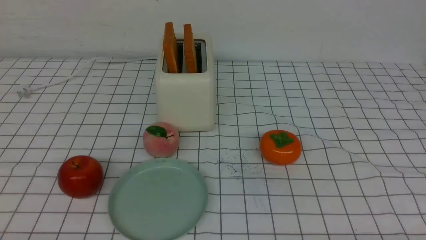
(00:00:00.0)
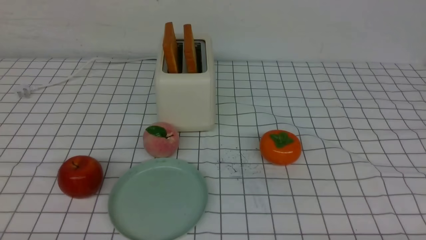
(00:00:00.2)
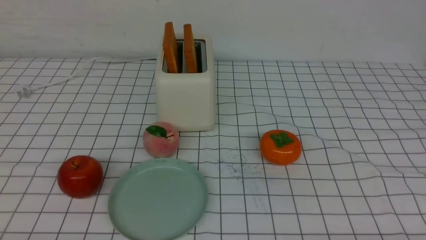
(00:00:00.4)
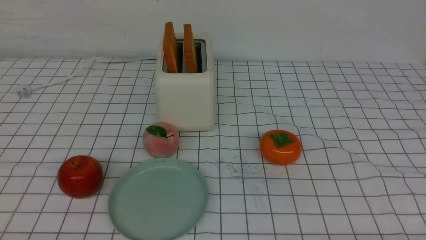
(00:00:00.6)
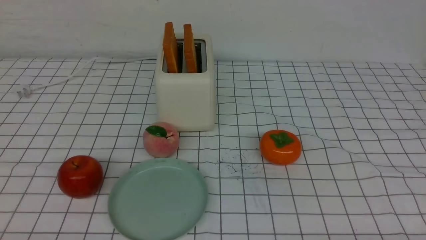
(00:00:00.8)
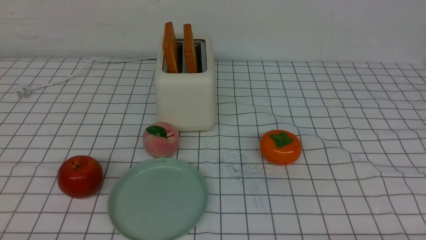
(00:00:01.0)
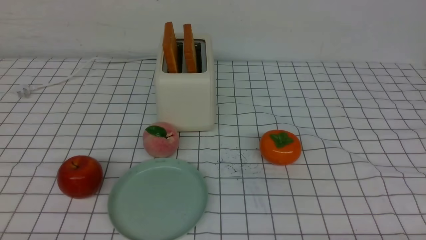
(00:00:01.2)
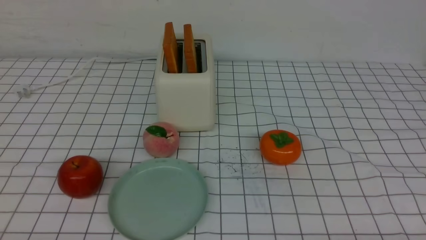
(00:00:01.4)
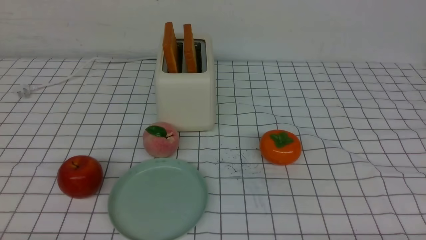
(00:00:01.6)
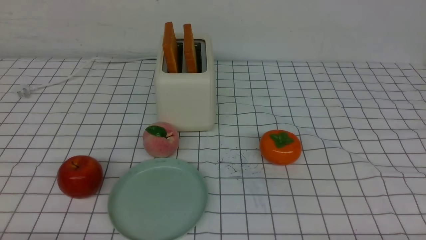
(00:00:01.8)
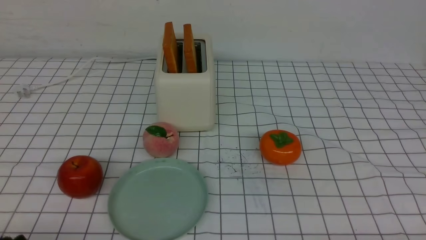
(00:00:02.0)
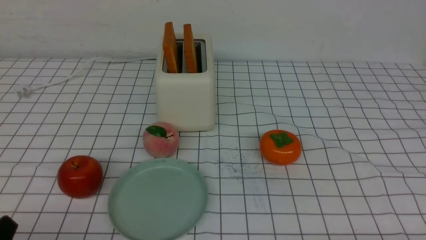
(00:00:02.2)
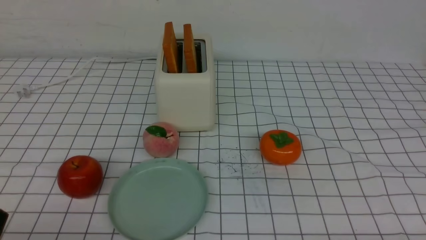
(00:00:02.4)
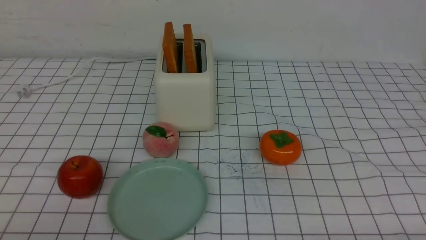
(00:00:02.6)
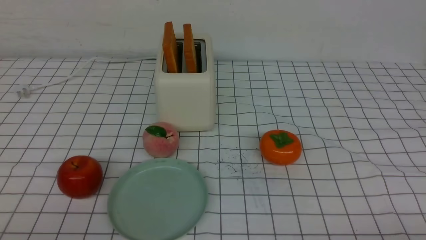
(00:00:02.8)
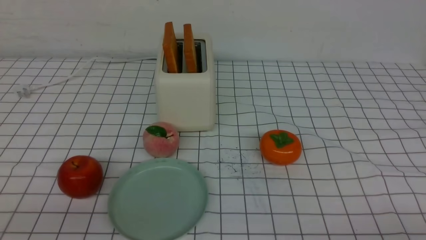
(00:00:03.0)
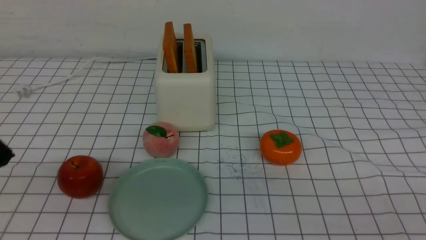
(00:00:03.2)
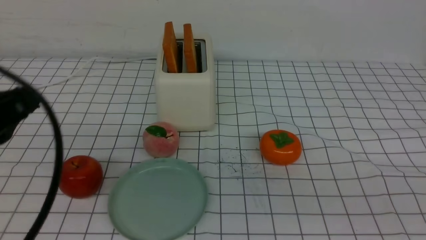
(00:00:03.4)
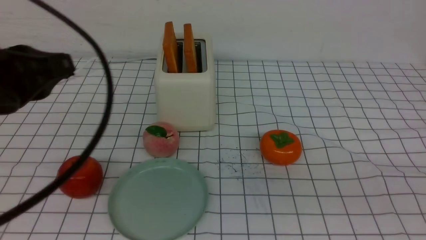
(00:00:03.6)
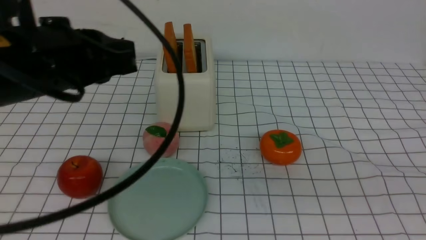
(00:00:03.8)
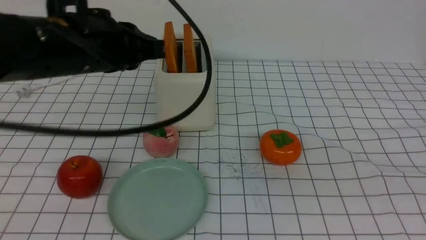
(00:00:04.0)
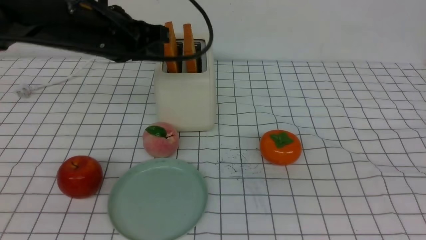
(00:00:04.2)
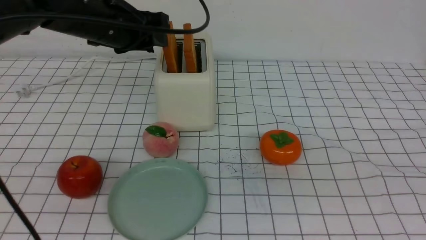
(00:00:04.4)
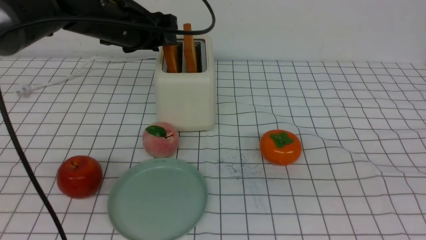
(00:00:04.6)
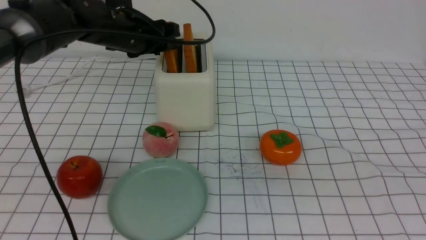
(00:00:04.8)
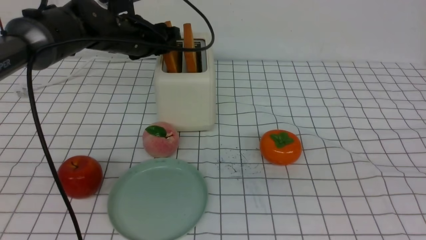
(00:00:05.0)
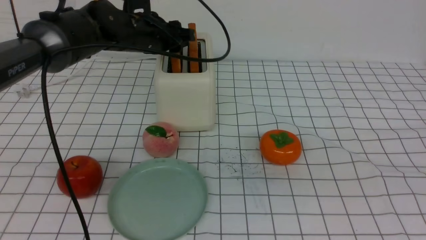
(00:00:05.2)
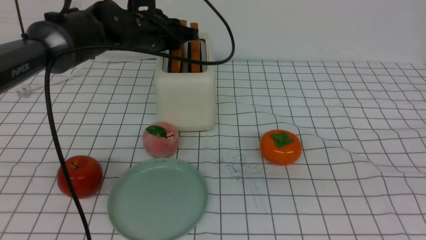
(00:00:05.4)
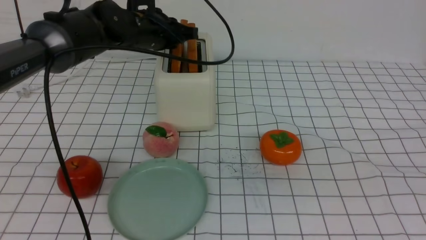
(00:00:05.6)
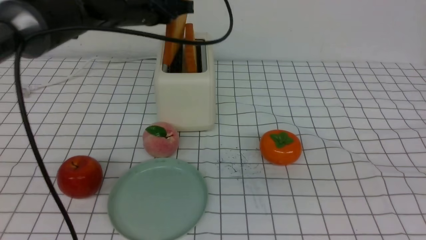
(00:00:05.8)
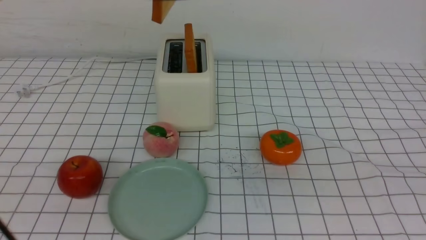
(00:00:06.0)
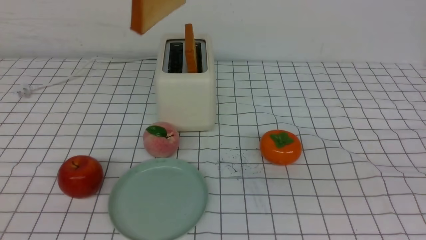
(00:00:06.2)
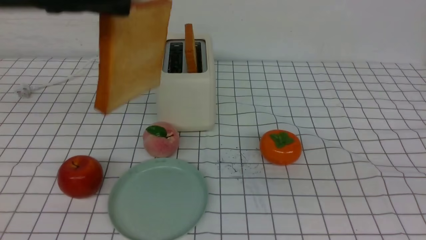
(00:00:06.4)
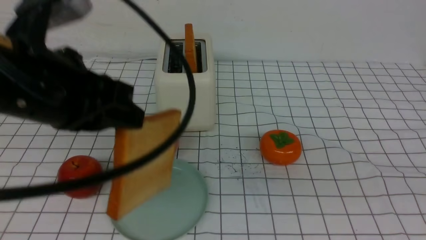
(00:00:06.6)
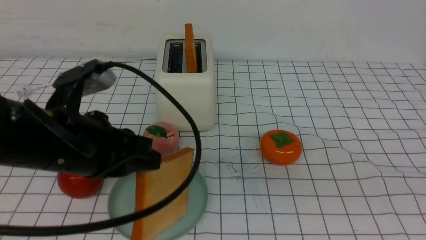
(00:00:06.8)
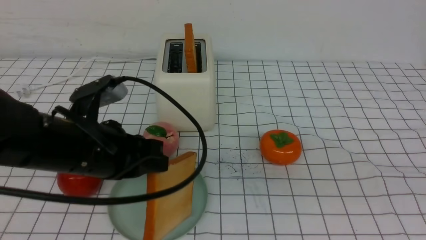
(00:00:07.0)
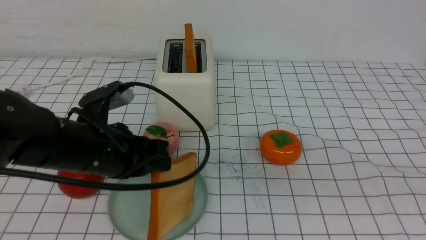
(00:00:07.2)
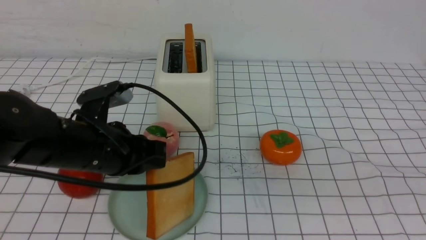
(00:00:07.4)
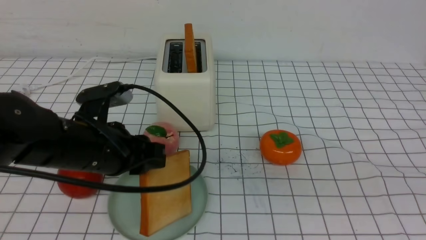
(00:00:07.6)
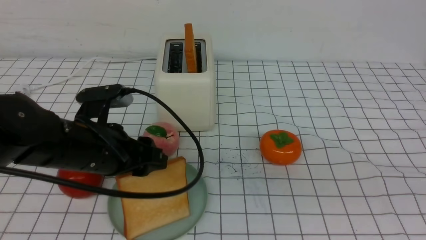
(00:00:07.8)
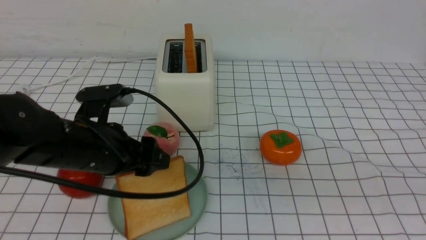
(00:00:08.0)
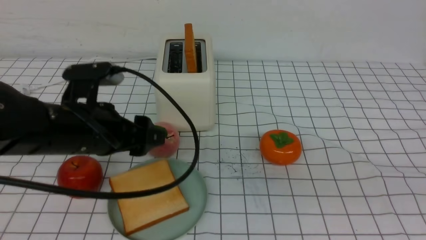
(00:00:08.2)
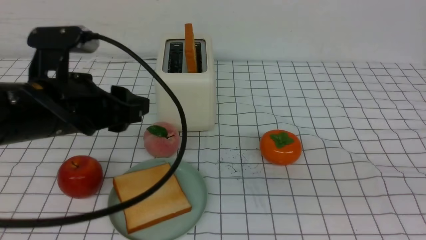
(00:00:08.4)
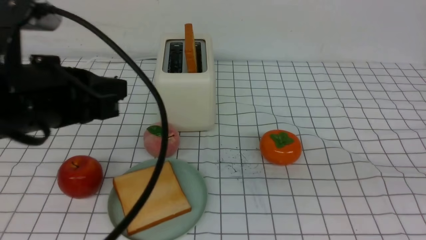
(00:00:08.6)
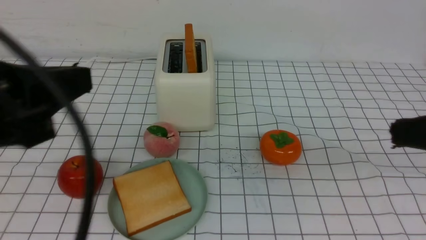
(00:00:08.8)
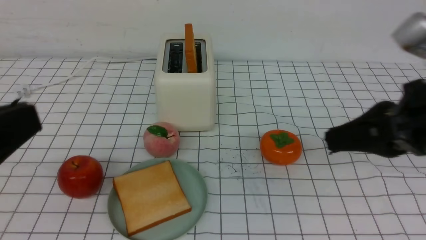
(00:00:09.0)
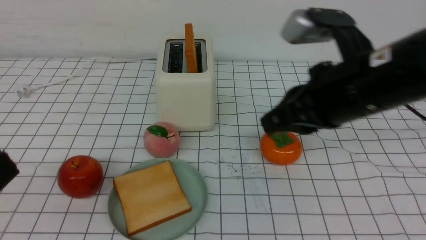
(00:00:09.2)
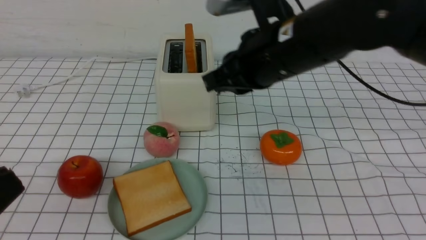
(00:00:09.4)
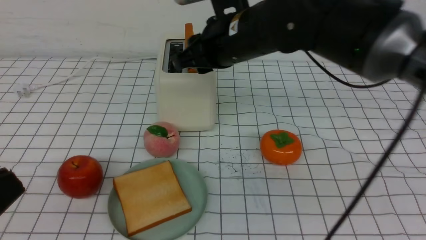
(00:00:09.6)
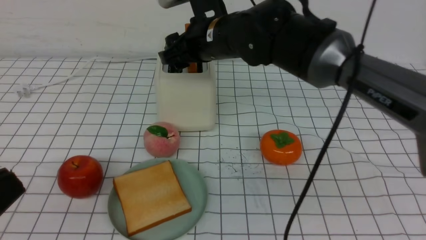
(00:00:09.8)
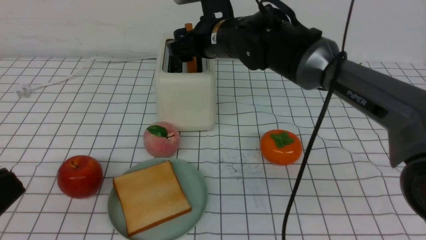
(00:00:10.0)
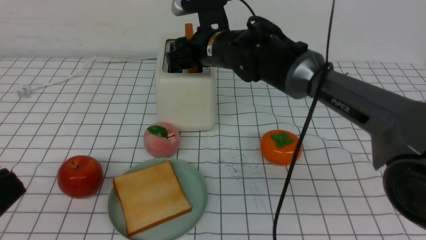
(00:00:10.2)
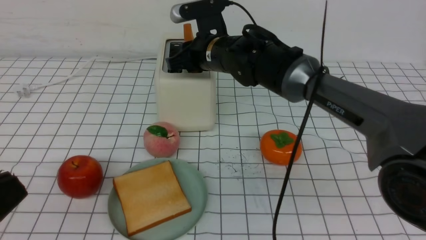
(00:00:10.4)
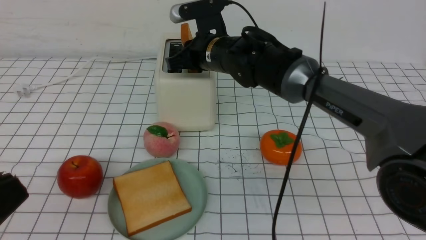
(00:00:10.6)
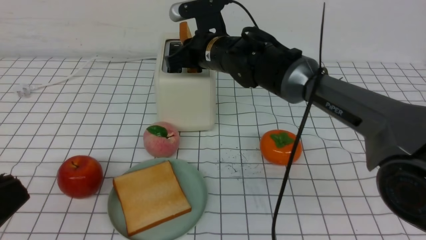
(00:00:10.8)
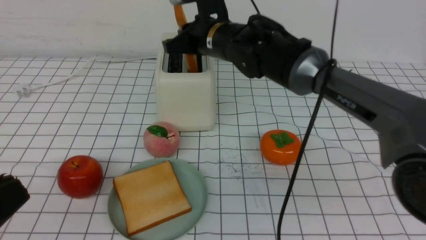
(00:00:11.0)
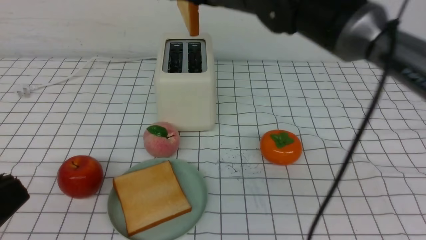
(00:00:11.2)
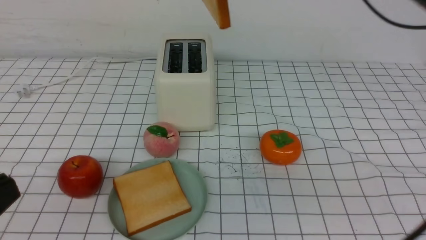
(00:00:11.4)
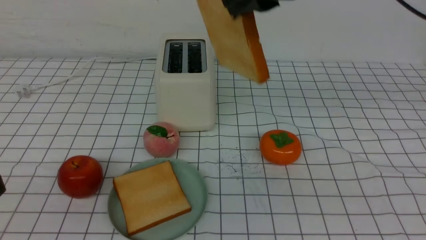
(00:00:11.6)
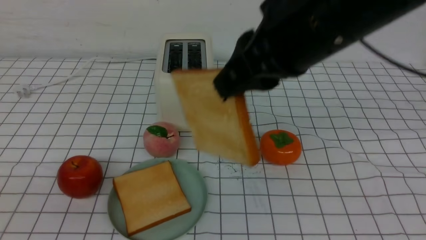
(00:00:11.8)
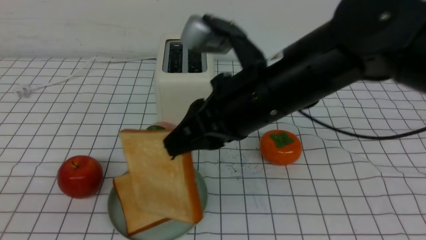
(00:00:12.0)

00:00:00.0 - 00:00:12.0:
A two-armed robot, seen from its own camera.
Task of the whole recording: take toasted bread from bread machine on white checkered table place on plate.
Step, 00:00:00.0 - 00:00:05.8: use the left arm to take out a slice of bread.
Step, 00:00:06.0 - 00:00:08.0: use the left arm to put a slice of bread into the empty plate.
Step, 00:00:08.2 - 00:00:11.0: use the right arm to take out a slice of bread.
00:00:00.0 - 00:00:01.6: Both grippers stay put.
00:00:01.6 - 00:00:03.0: The left gripper goes some 10 cm upward.
00:00:03.0 - 00:00:04.4: The right gripper heads upward, covering approximately 20 cm. The left gripper is displaced forward by some 35 cm, and opens up.
00:00:04.4 - 00:00:06.0: The left gripper shifts roughly 10 cm upward, and closes its fingers.
00:00:06.0 - 00:00:07.6: The left gripper is displaced downward and backward by some 25 cm, and opens its fingers.
00:00:07.6 - 00:00:09.0: The right gripper travels forward by some 15 cm, while the left gripper is displaced backward and upward by some 25 cm, and closes up.
00:00:09.0 - 00:00:10.4: The right gripper heads forward and to the left, covering about 30 cm, and opens up. The left gripper ends up some 5 cm from where it was.
00:00:10.4 - 00:00:12.0: The right gripper moves backward, roughly 20 cm.

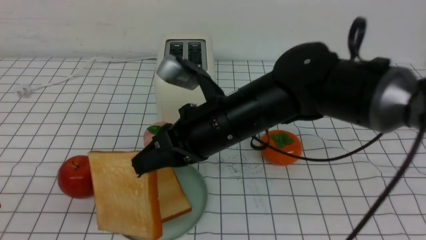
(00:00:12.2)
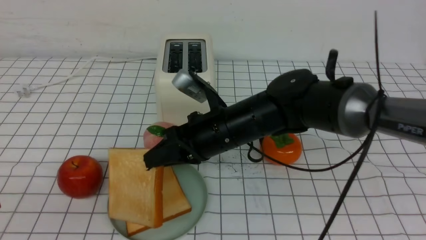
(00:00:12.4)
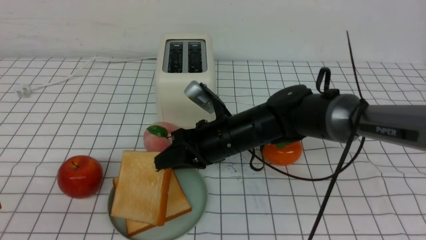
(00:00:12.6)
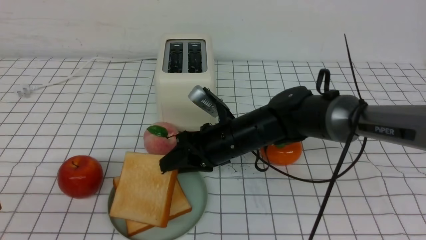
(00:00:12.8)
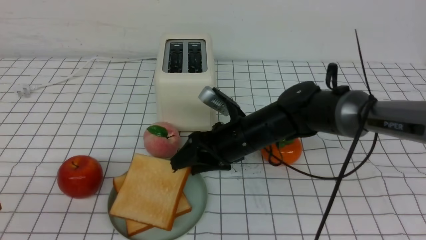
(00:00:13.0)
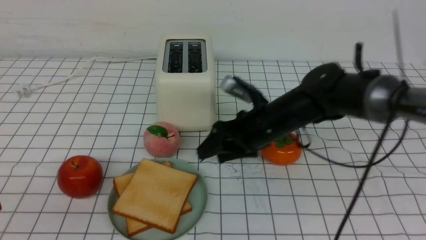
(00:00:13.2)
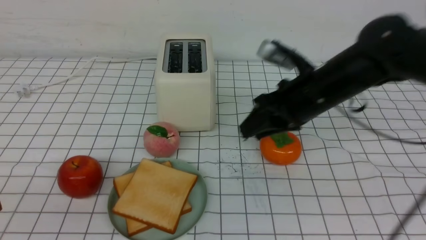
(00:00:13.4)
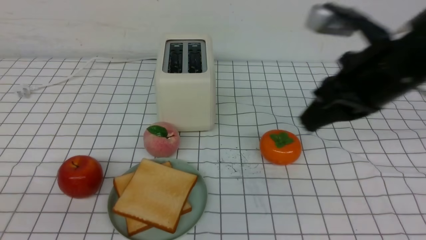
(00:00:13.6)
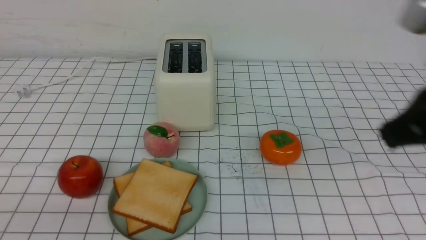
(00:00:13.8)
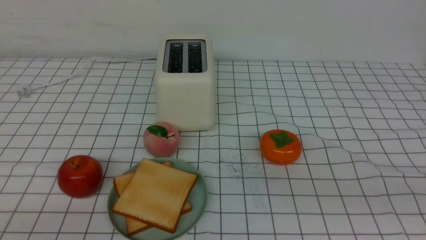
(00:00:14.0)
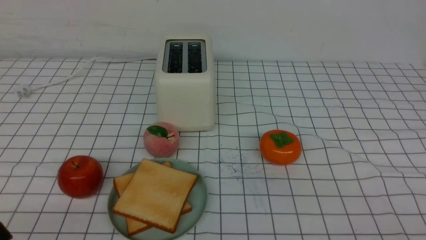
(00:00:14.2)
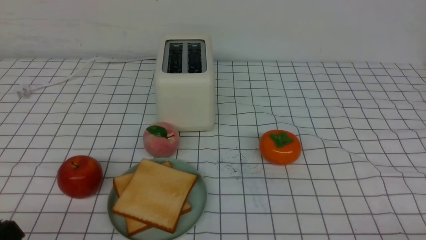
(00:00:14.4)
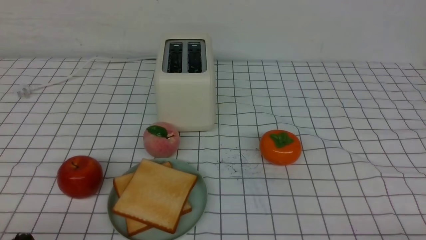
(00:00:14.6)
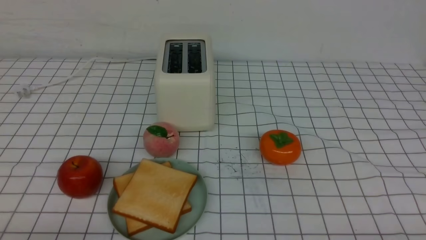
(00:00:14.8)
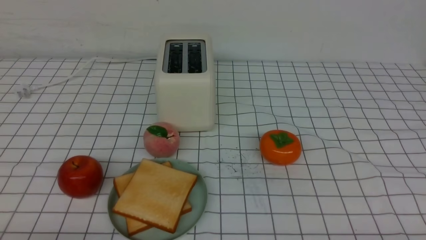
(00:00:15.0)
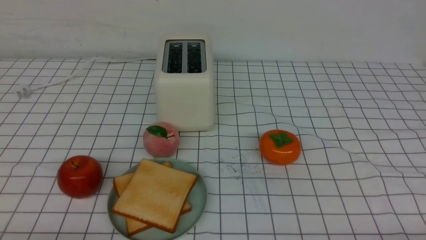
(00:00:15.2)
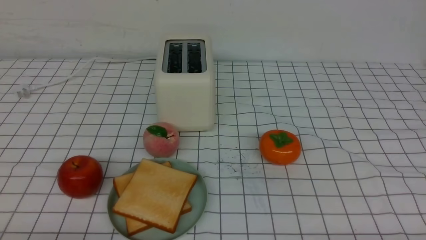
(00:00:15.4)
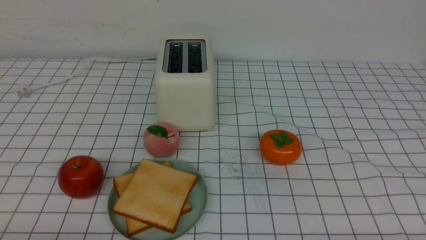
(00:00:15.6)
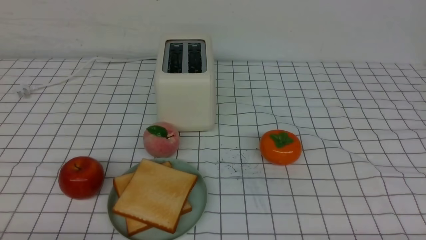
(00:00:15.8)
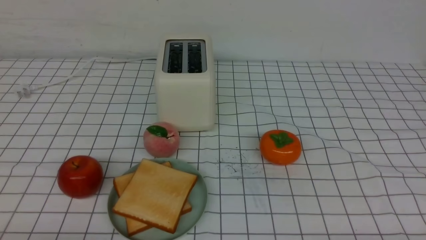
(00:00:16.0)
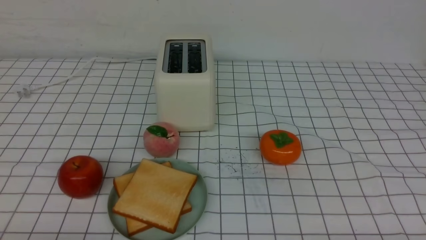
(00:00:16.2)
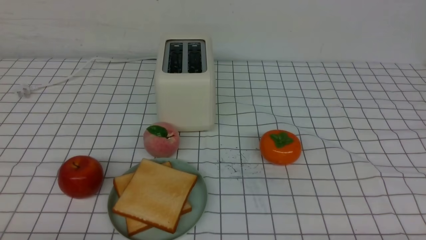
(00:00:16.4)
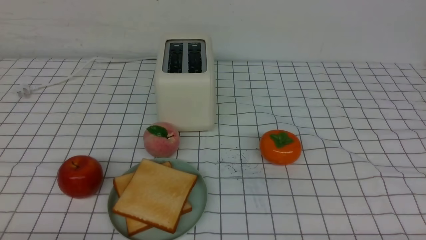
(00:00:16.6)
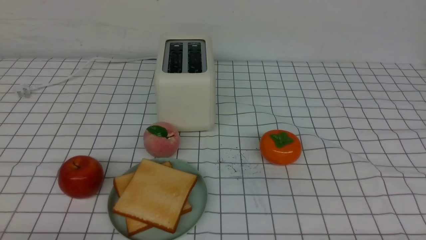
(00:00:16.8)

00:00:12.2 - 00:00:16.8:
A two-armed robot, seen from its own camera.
Task of the whole recording: take toasted bread from bread machine on white checkered table place on plate.
00:00:12.2 - 00:00:13.8: The right gripper travels to the right, backward and upward by roughly 25 cm, and opens, then closes once more.
00:00:13.8 - 00:00:15.2: The left gripper heads downward, covering about 10 cm, while the right gripper is displaced downward and backward by about 25 cm.
